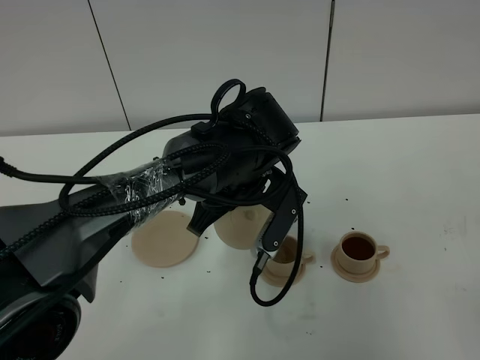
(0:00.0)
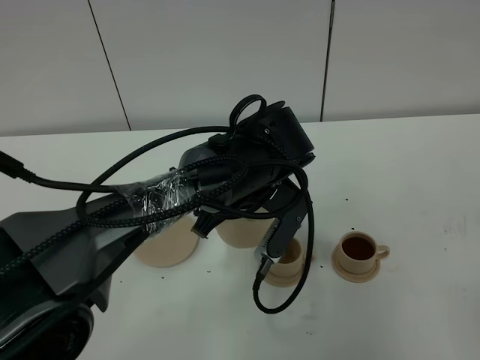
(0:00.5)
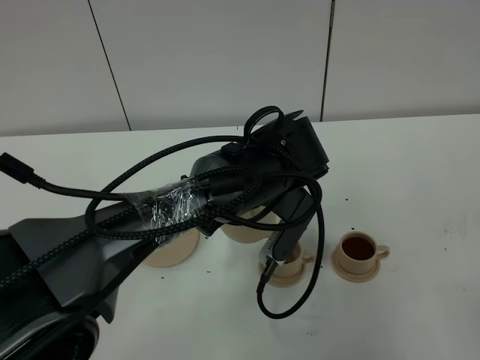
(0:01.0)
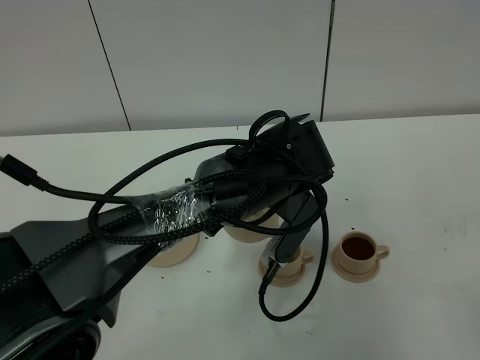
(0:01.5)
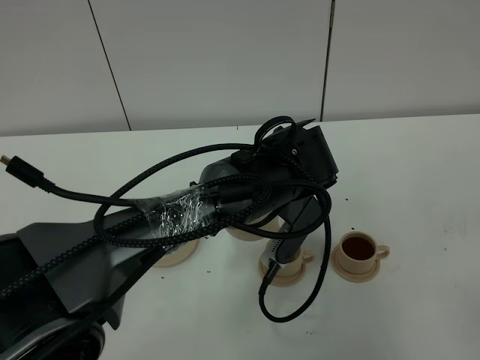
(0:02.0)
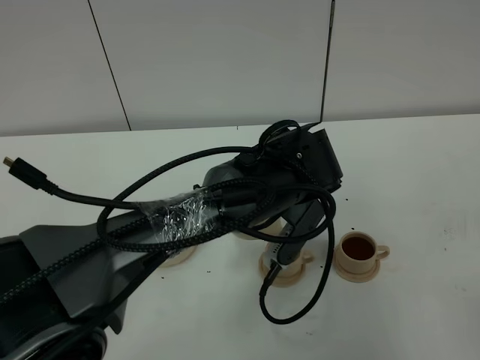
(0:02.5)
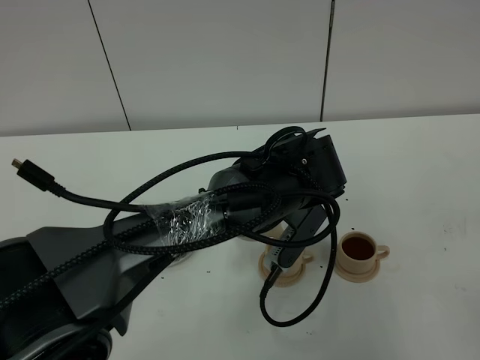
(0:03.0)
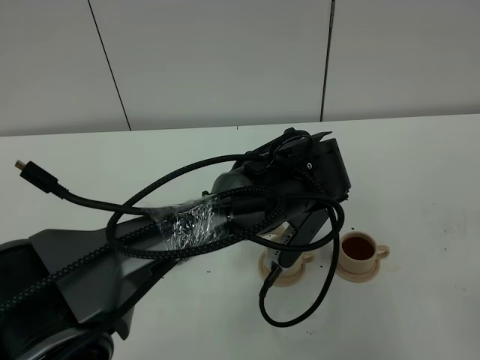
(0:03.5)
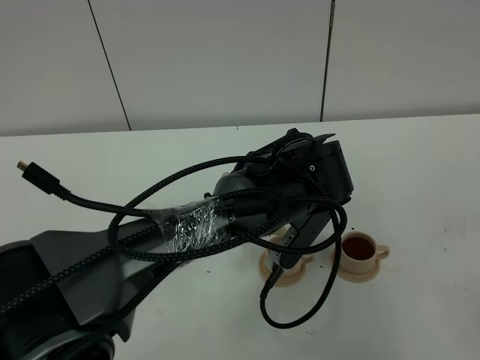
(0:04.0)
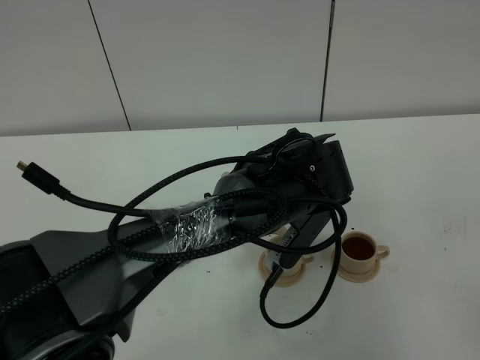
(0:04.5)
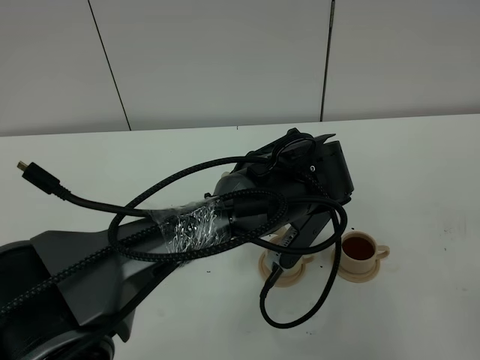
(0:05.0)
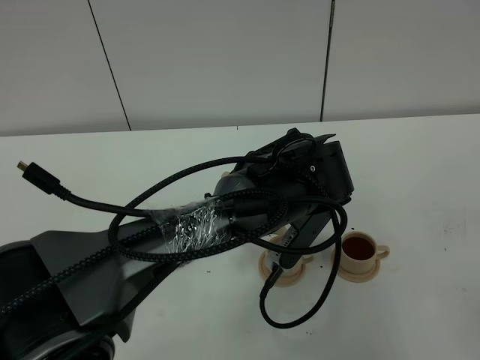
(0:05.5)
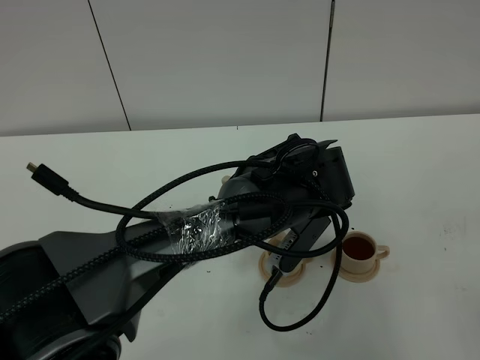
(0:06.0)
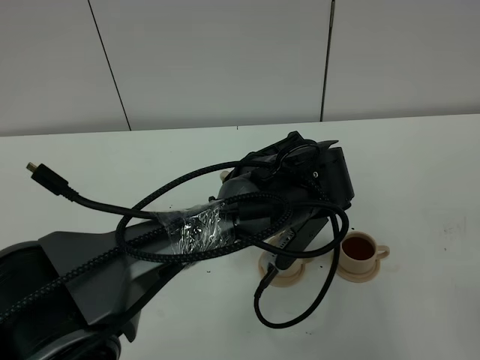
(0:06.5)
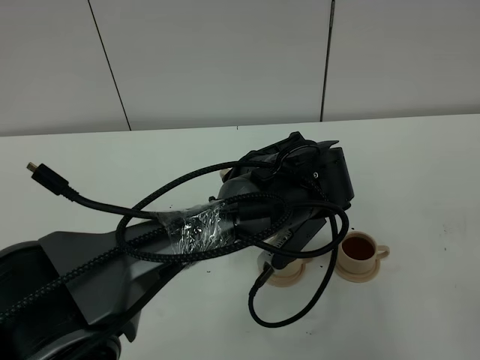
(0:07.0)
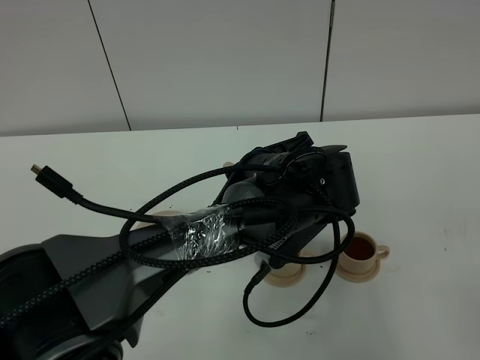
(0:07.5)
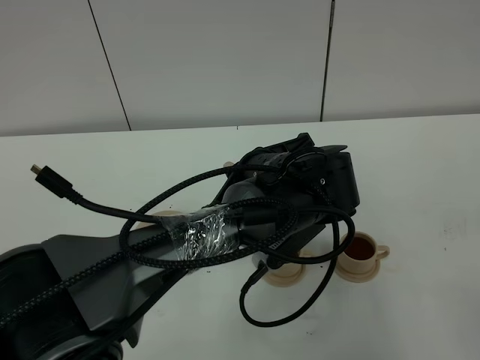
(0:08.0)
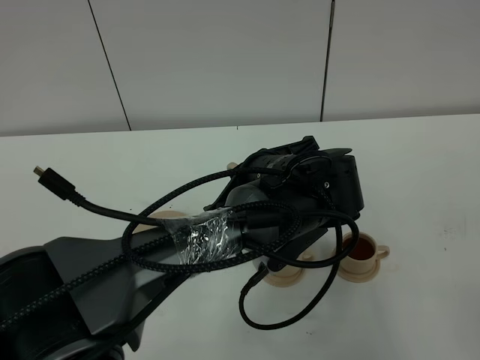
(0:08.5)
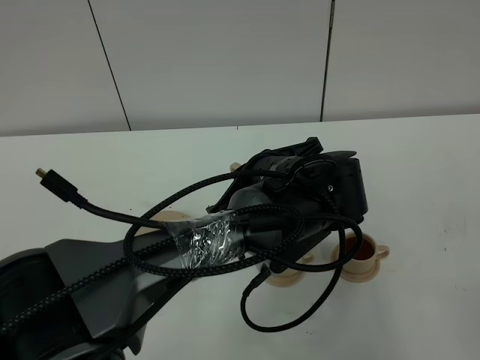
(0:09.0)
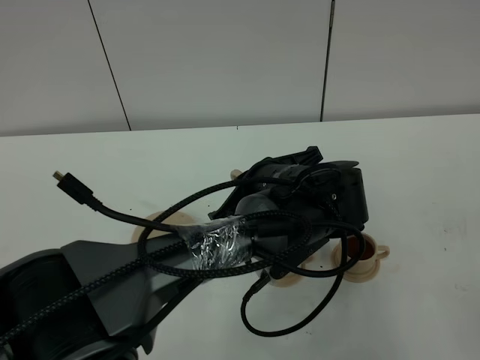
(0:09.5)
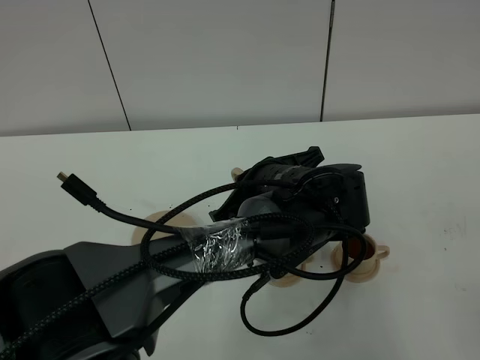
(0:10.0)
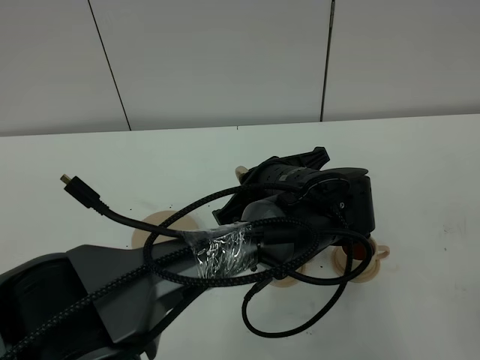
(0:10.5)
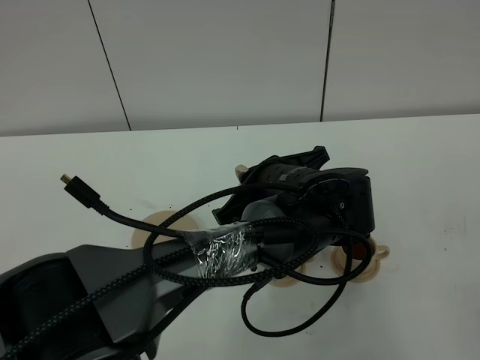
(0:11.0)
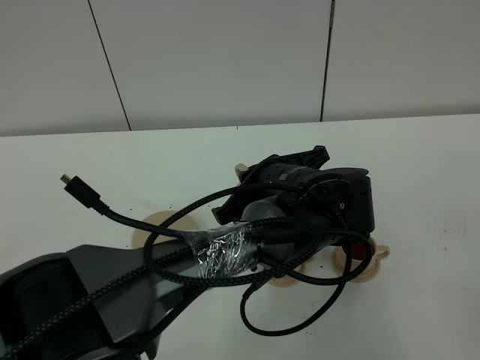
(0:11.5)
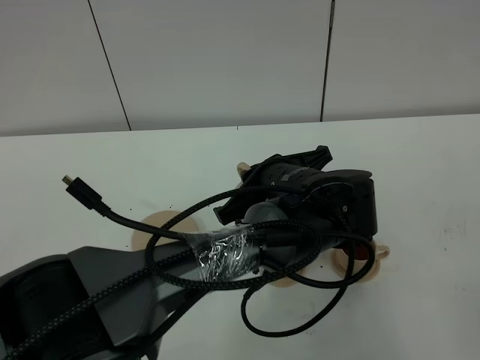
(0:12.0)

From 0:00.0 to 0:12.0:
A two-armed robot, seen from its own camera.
Task of the whole recording: grasp the brown teapot and pour the tea into the two brown teacups one by one, put the brown teapot back in its original place.
From 0:02.0 to 0:04.0: There are only small adjustments of the grippers.
From 0:04.0 to 0:06.0: Both grippers stay put.
From 0:06.0 to 0:10.0: The grippers stay close to where they were, moving slightly.
From 0:10.0 to 0:12.0: Neither gripper changes place.

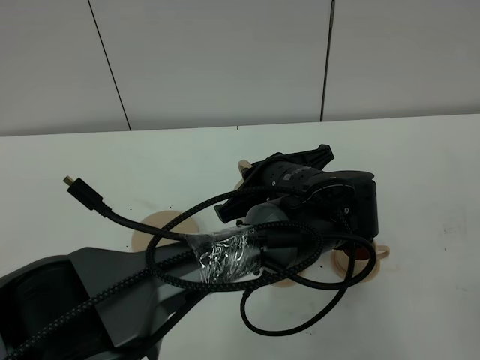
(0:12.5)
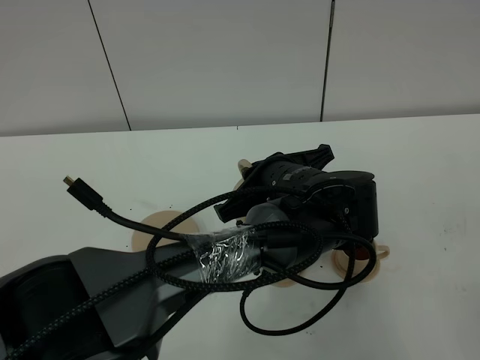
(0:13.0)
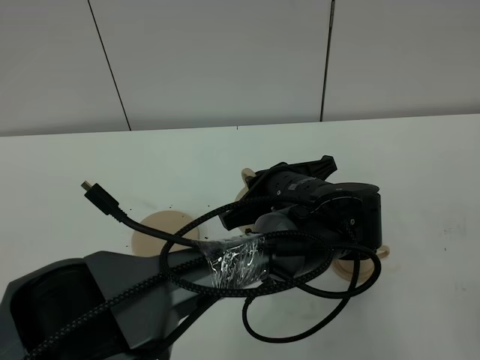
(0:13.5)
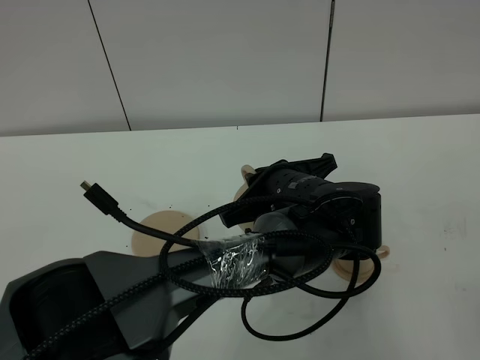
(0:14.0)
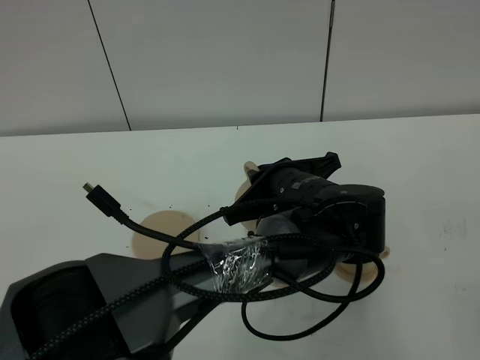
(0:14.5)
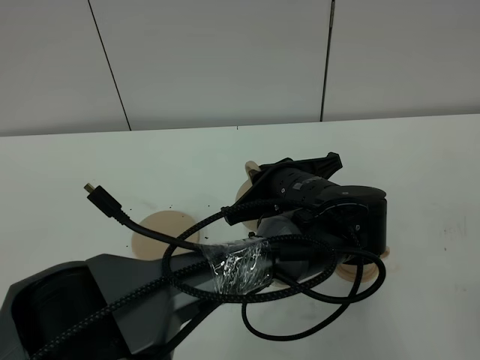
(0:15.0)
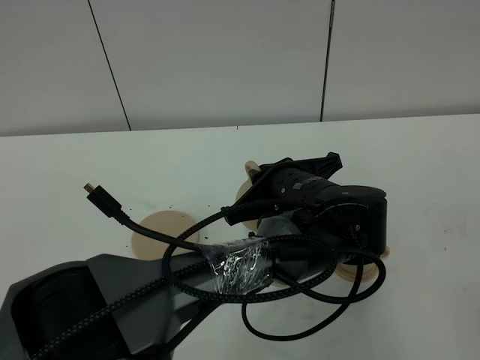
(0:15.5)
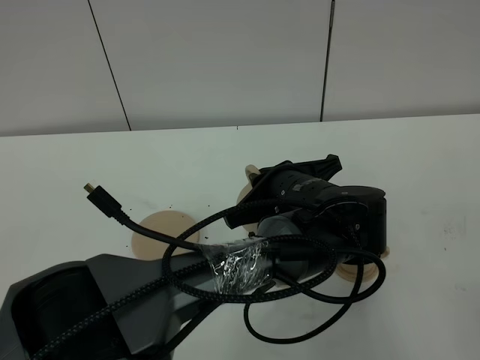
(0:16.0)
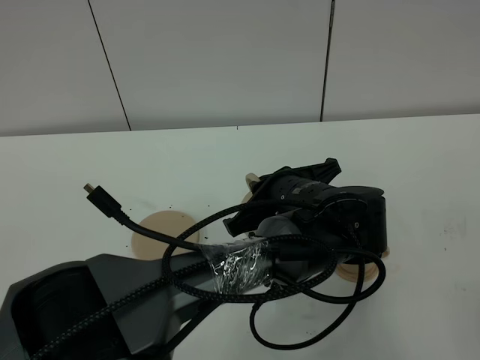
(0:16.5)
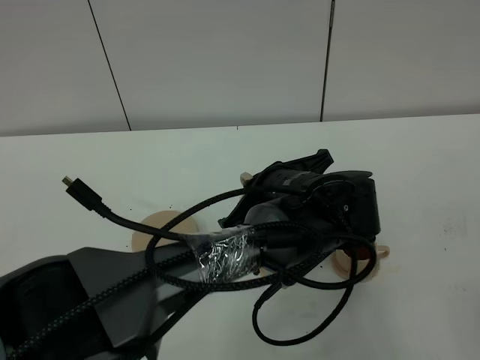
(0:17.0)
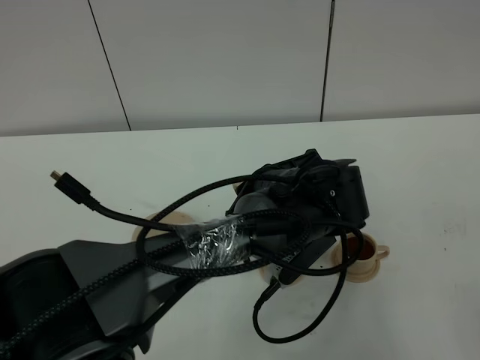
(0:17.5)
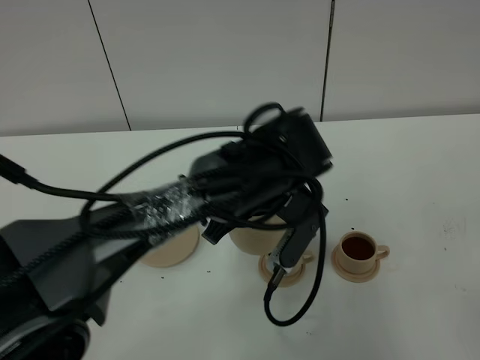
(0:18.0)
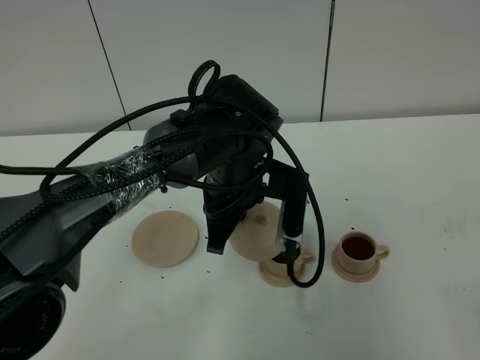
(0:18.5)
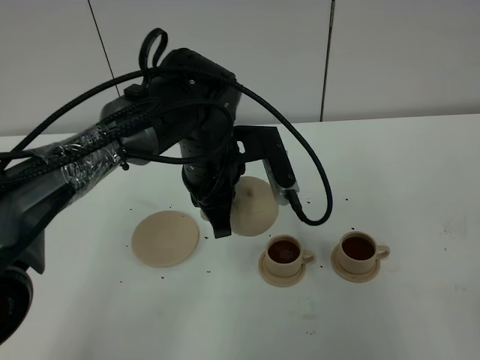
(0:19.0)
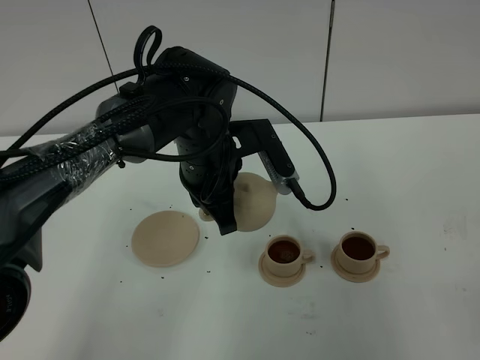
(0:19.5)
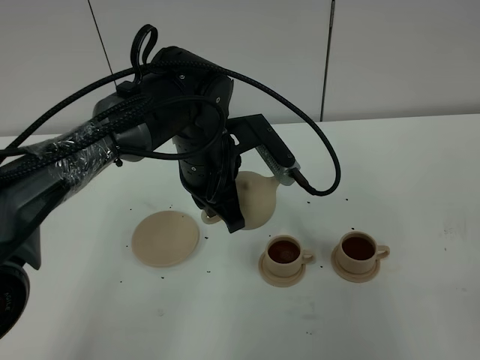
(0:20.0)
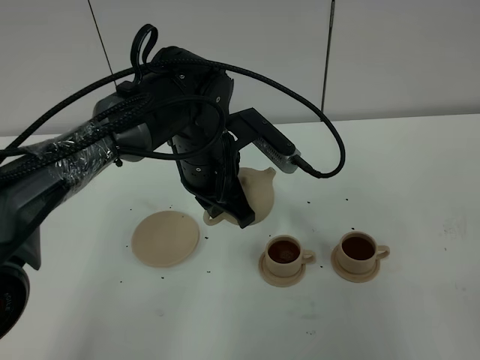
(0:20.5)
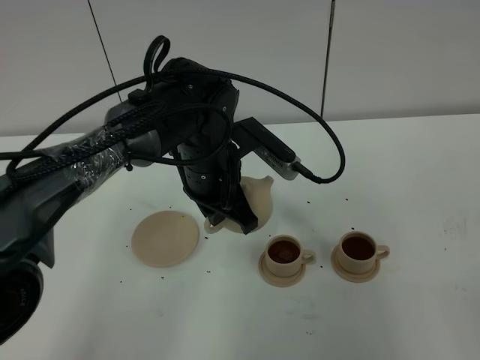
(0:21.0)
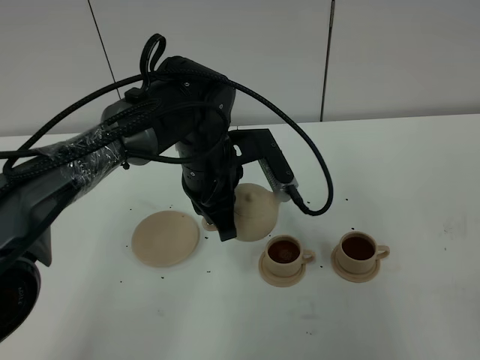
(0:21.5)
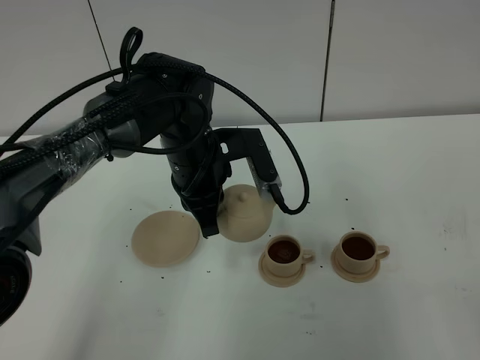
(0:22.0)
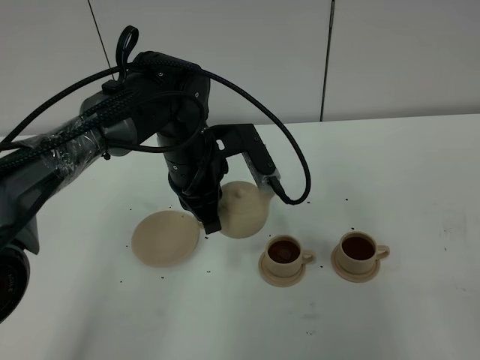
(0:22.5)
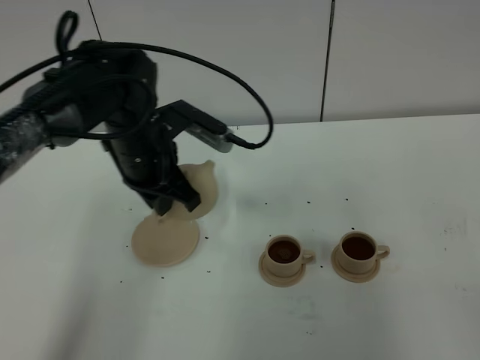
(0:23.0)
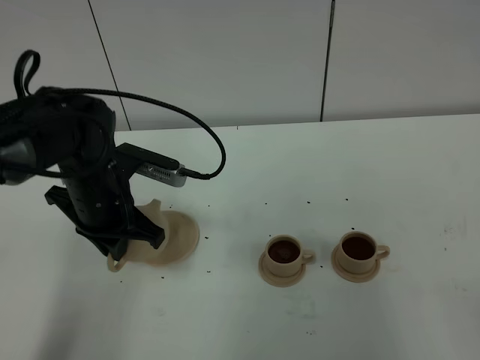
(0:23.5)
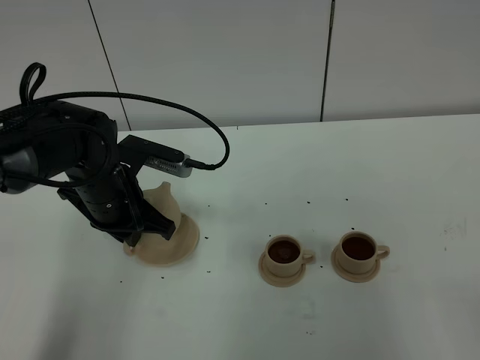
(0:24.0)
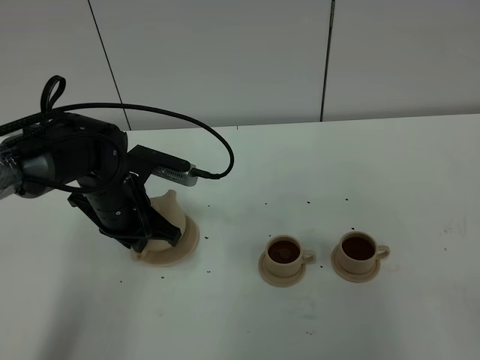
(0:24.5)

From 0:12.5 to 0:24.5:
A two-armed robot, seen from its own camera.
Task of the whole recording: grasp the brown teapot and pour the tea into the two brown teacups one by one, put the brown teapot back in its original place.
Step, from 0:12.5 to 0:18.0: Pour tea into the teacup with the left gripper.
From 0:12.5 to 0:16.5: The grippers stay close to where they were, moving slightly.
From 0:16.5 to 0:18.5: The left gripper goes about 10 cm to the left.
From 0:22.5 to 0:24.5: The left gripper moves to the left, about 10 cm.

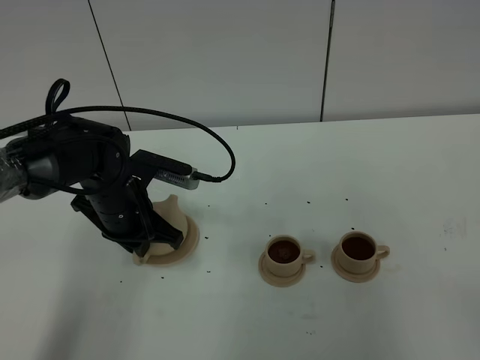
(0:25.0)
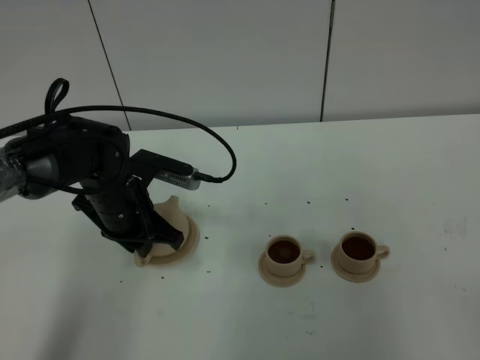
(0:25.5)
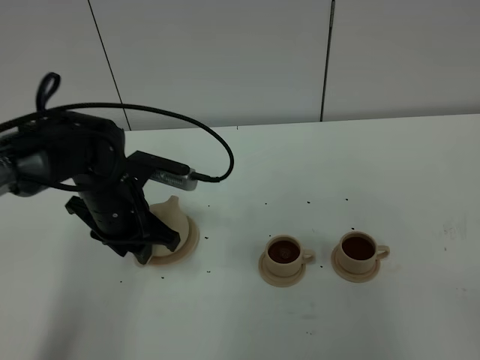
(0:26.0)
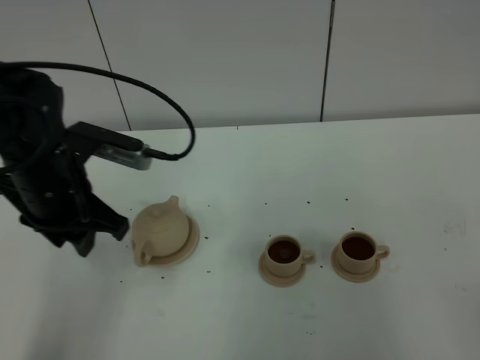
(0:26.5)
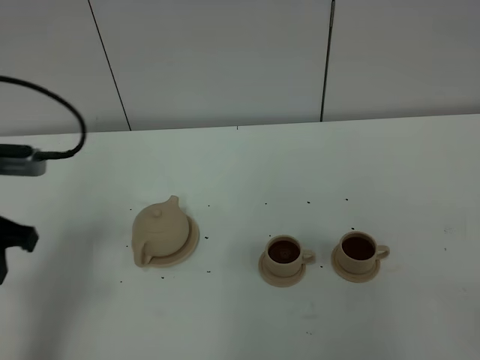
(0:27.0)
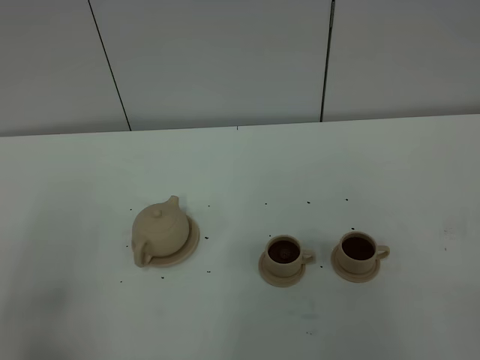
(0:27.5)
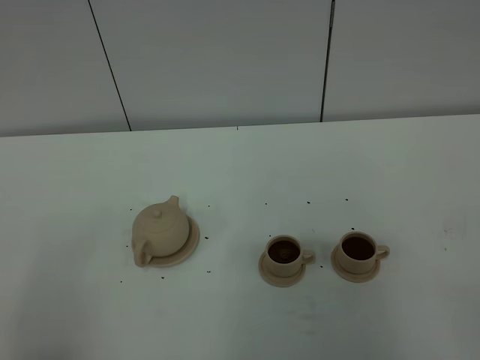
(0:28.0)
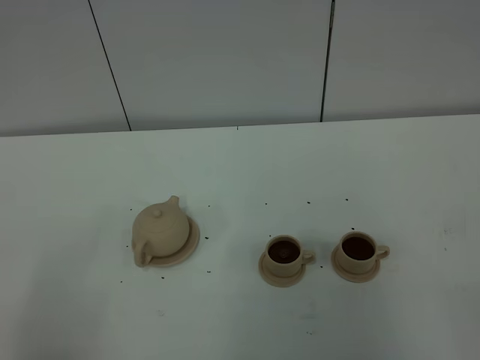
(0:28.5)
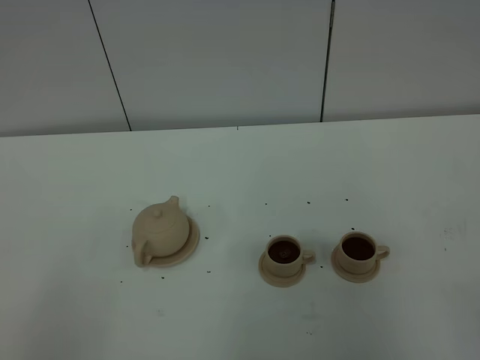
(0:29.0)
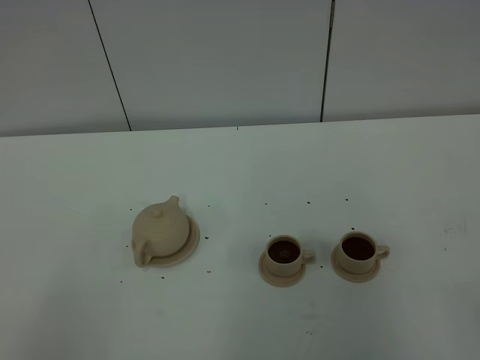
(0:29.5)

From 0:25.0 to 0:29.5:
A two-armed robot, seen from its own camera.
Task of the whole recording: grasp the brown teapot and pour the tea into the two brown teacups one by one, put the brown teapot back in its original place.
From 0:25.0 to 0:27.0: The left gripper is displaced to the left, upward and backward by some 20 cm, and opens.
From 0:27.0 to 0:29.5: The left gripper heads backward, covering about 30 cm.
